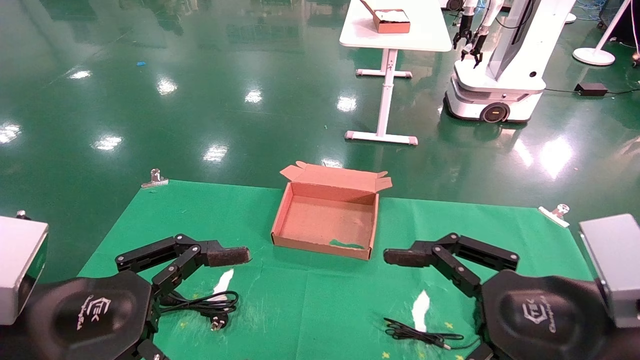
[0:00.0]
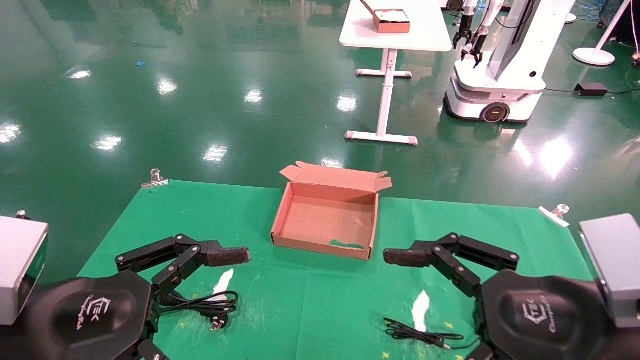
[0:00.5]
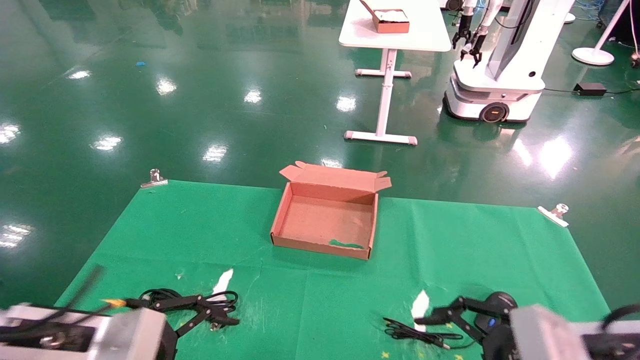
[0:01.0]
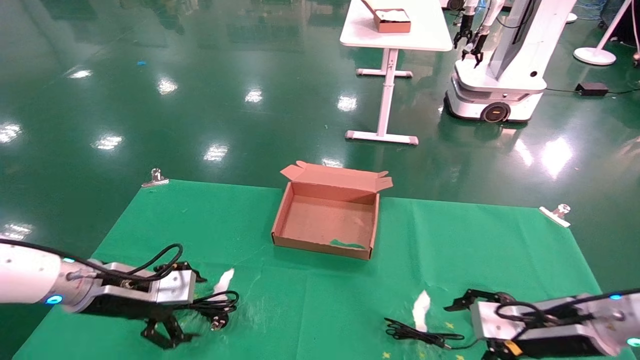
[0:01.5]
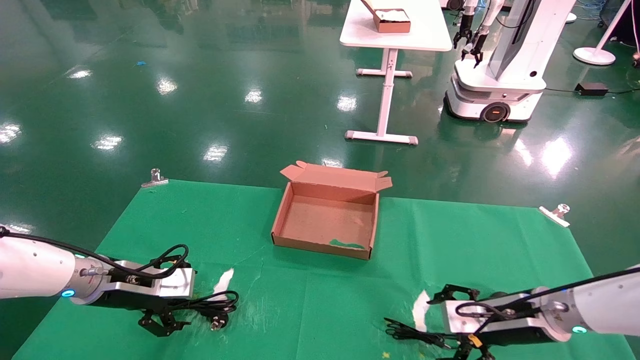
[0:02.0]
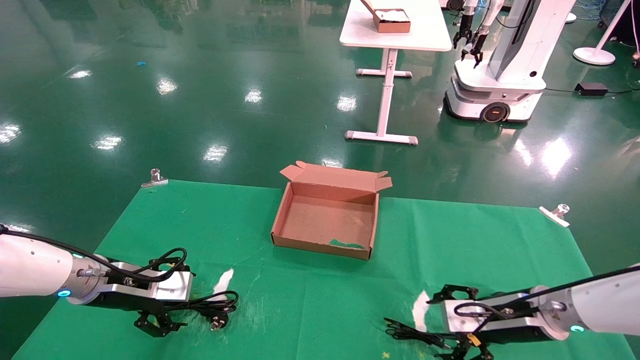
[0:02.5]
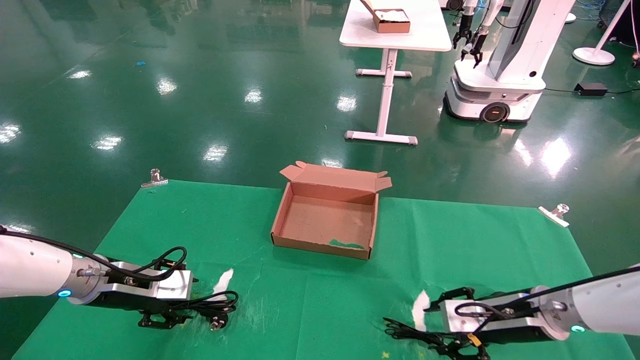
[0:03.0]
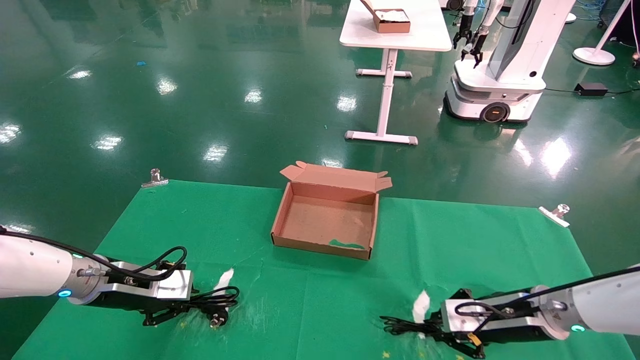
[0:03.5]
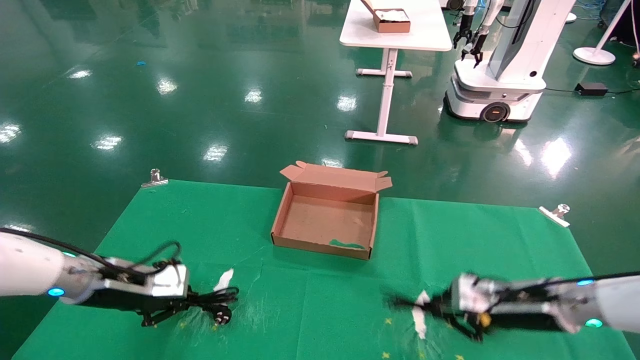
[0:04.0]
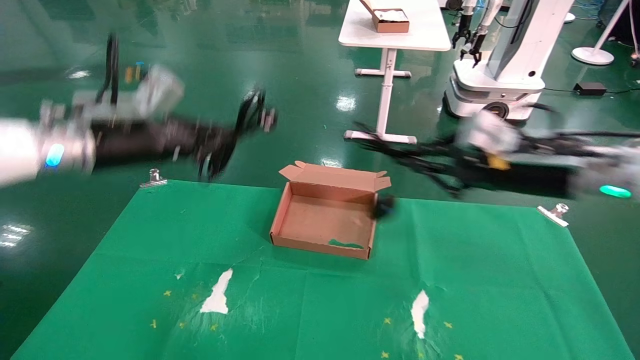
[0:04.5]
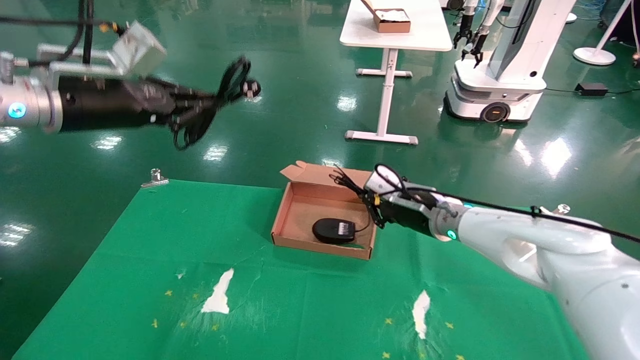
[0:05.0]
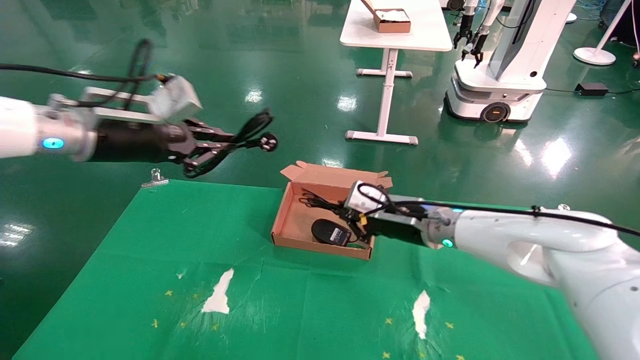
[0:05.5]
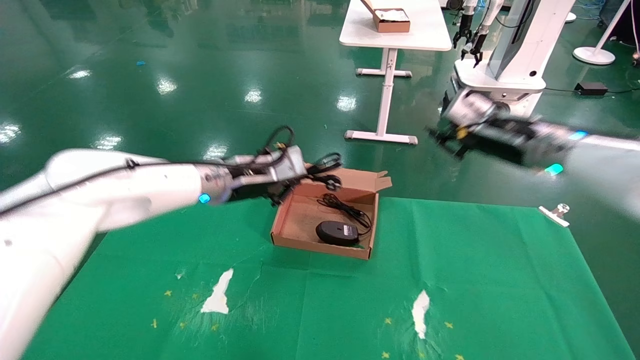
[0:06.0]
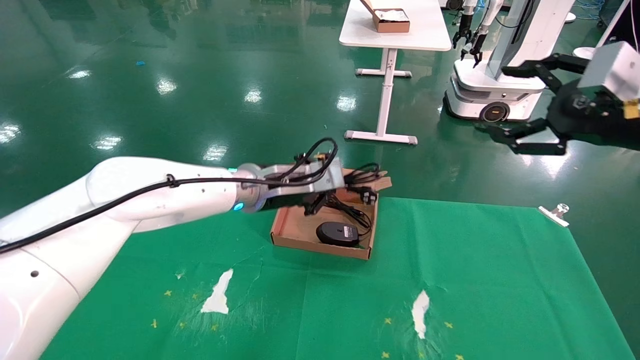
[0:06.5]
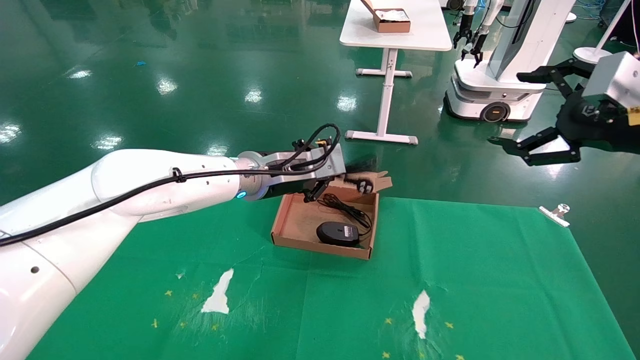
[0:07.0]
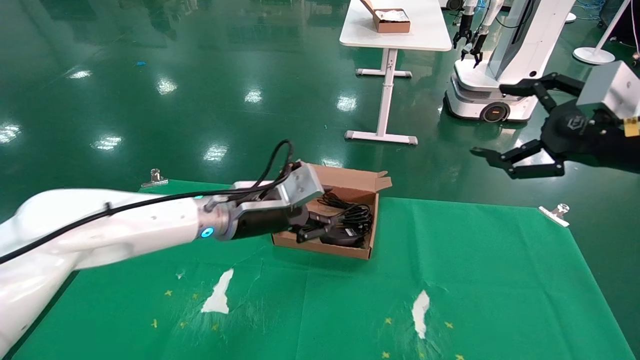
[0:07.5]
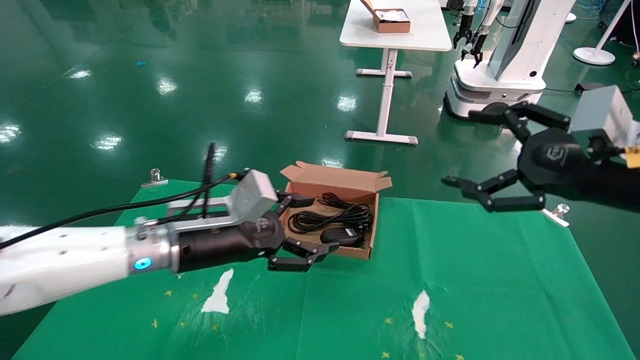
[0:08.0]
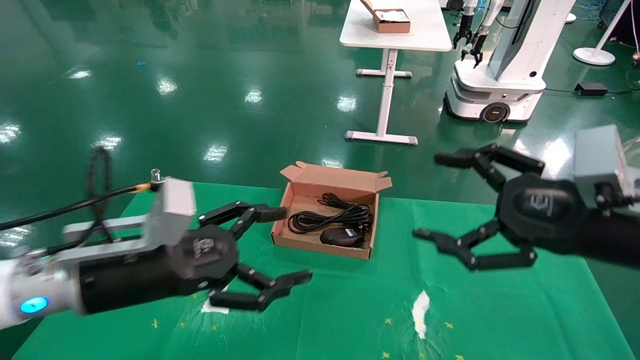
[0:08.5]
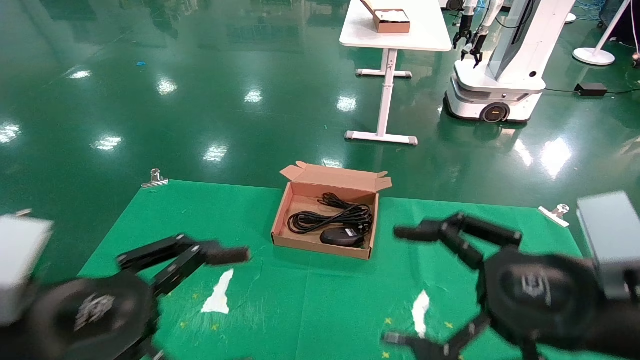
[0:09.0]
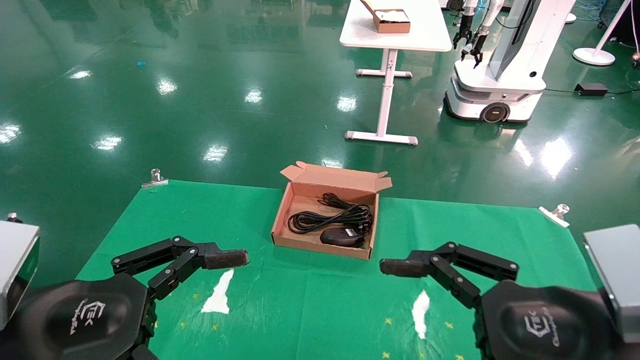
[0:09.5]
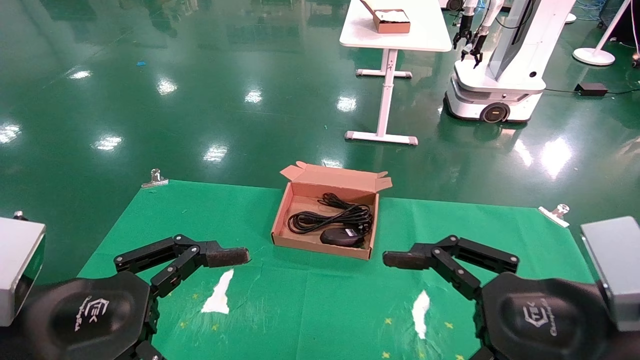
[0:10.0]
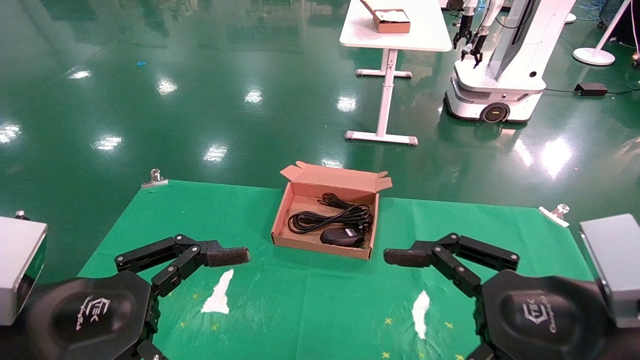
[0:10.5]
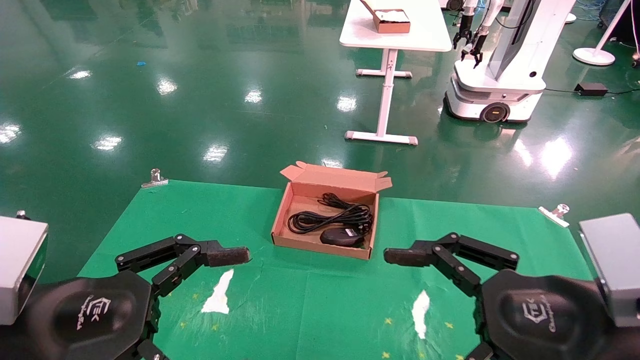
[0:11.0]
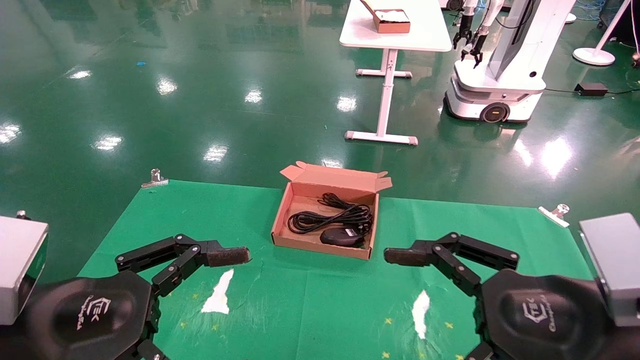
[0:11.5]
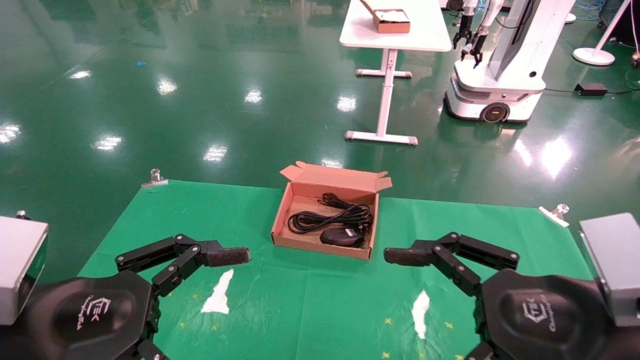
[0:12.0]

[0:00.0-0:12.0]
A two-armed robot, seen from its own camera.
Step, 0:01.0 to 0:03.5: Grab and lift both the mouse and power cord from the accessory packaging area at the same time.
Step, 0:04.0 to 0:07.0: Place the mouse and power cord into the box.
0:00.0 to 0:02.0: The right gripper moves forward and downward, some 25 cm; the left gripper travels forward by roughly 25 cm.
0:02.0 to 0:04.0: The right gripper closes up; the left gripper closes up.
0:04.0 to 0:06.0: The left gripper travels to the right and upward by about 20 cm, while the right gripper swings up and down, some 20 cm each way, with 2 reversals.
0:06.0 to 0:08.0: The left gripper goes about 10 cm backward and downward, and opens its fingers. The right gripper goes about 15 cm backward, and opens.
0:08.0 to 0:10.0: The left gripper travels backward and to the left by some 20 cm. Meanwhile the right gripper shifts some 15 cm backward, to the left and downward.
0:10.0 to 0:12.0: Both grippers stay put.
